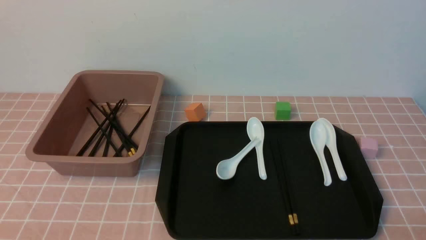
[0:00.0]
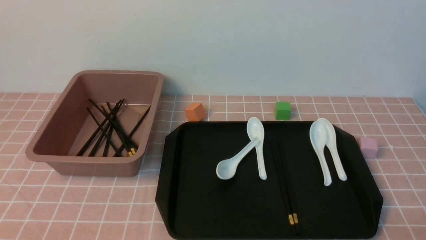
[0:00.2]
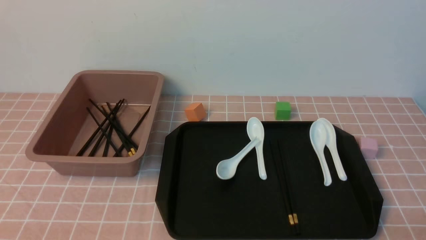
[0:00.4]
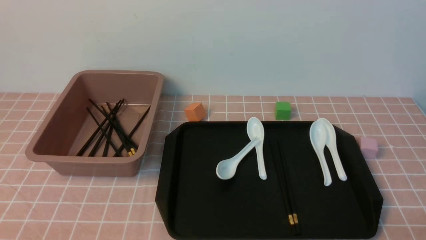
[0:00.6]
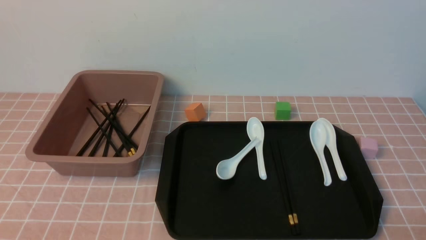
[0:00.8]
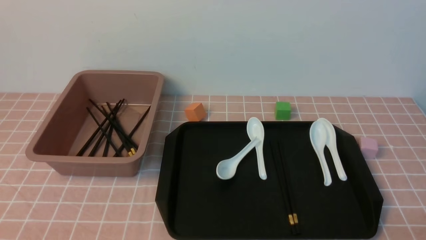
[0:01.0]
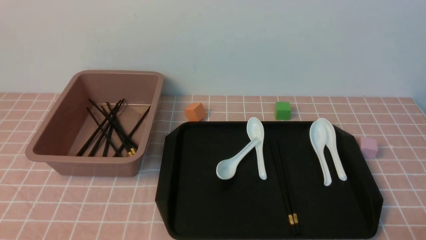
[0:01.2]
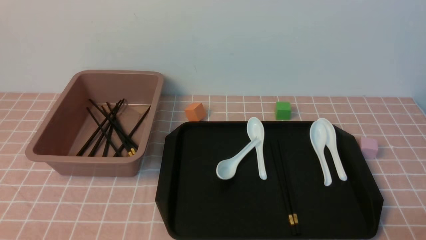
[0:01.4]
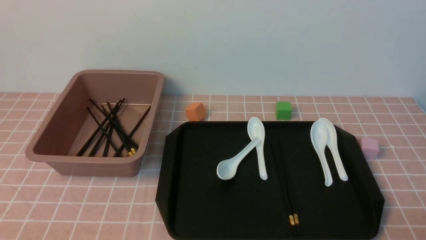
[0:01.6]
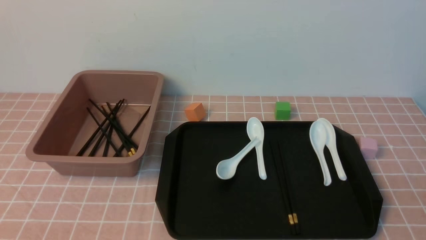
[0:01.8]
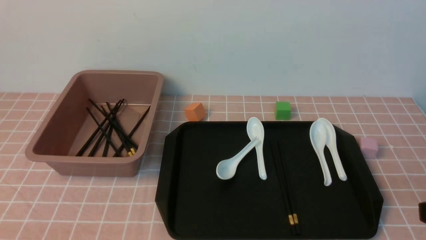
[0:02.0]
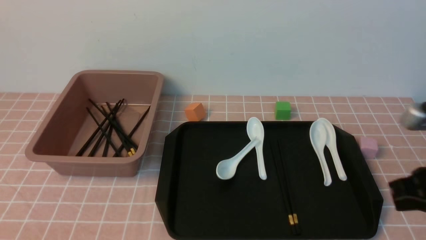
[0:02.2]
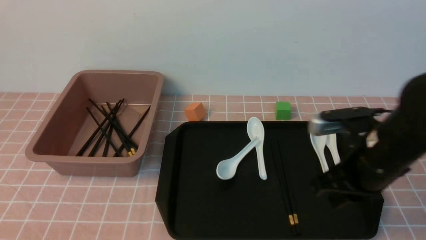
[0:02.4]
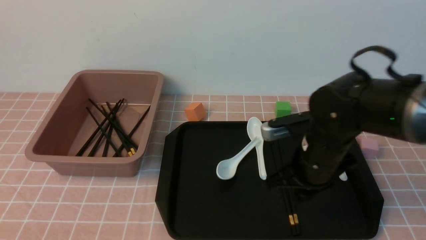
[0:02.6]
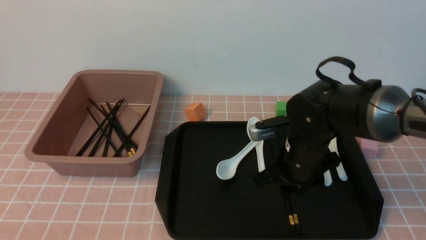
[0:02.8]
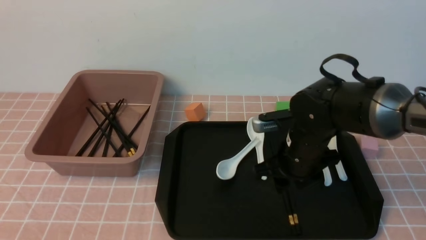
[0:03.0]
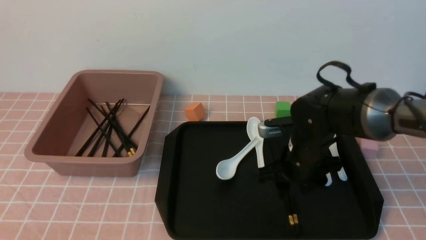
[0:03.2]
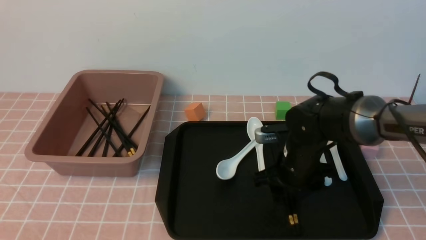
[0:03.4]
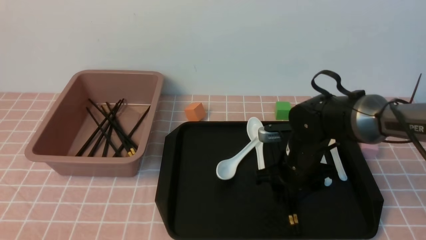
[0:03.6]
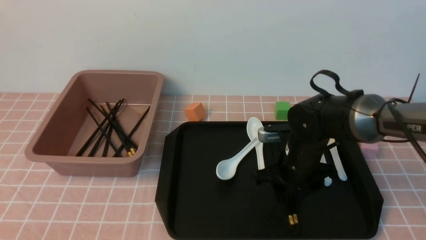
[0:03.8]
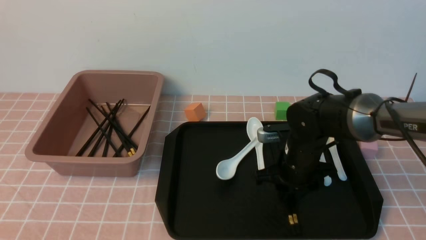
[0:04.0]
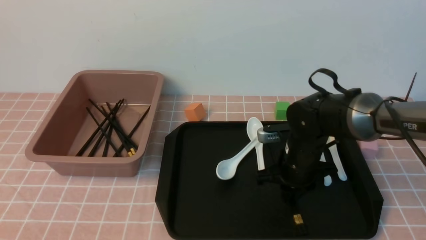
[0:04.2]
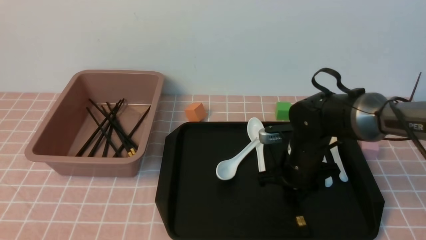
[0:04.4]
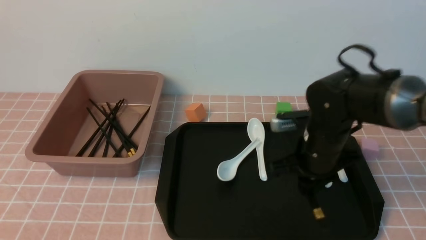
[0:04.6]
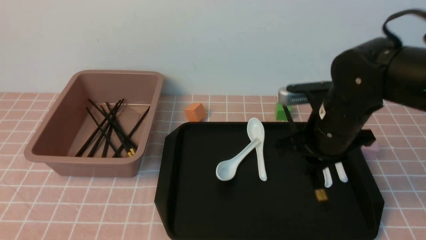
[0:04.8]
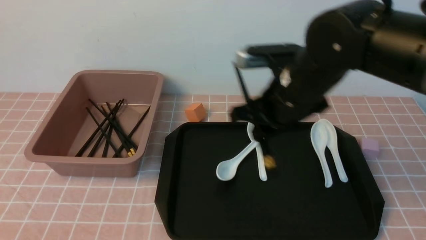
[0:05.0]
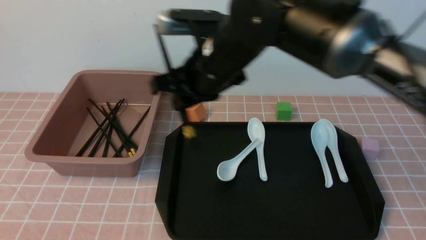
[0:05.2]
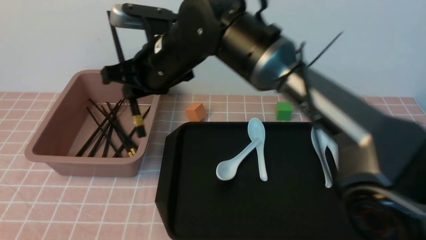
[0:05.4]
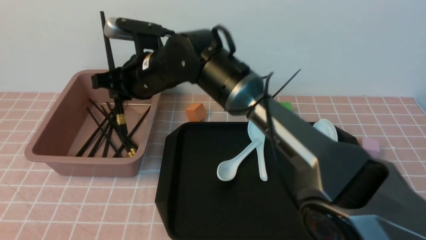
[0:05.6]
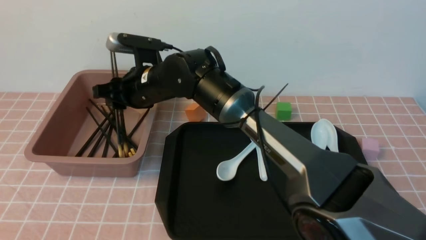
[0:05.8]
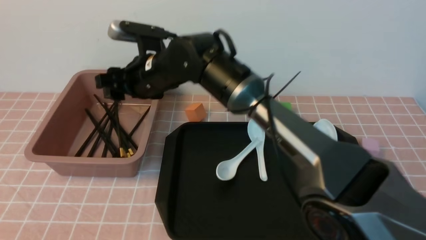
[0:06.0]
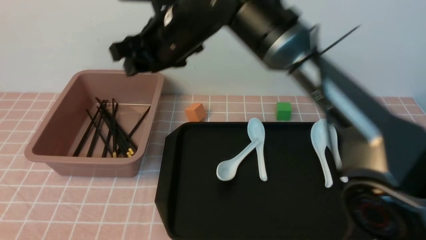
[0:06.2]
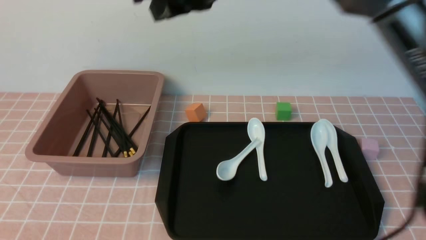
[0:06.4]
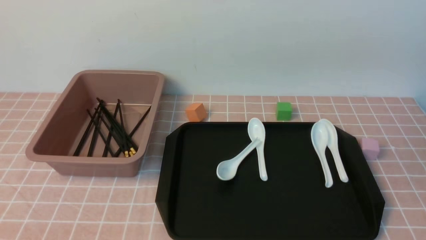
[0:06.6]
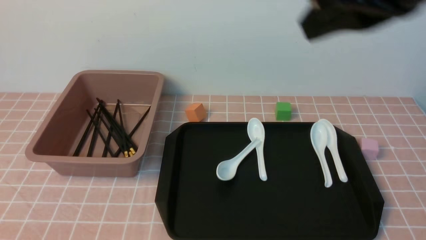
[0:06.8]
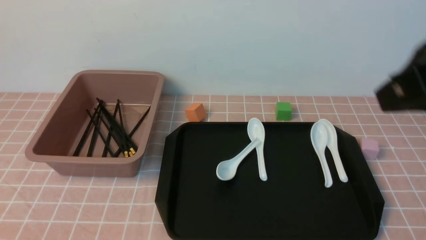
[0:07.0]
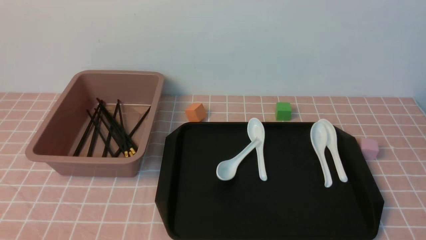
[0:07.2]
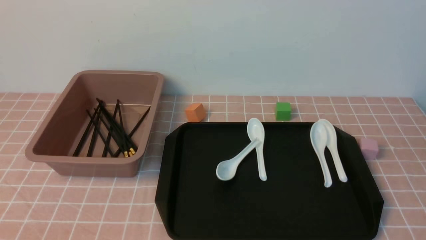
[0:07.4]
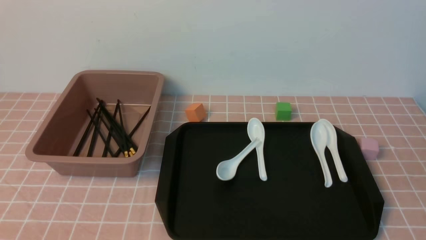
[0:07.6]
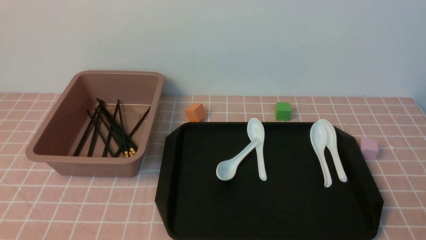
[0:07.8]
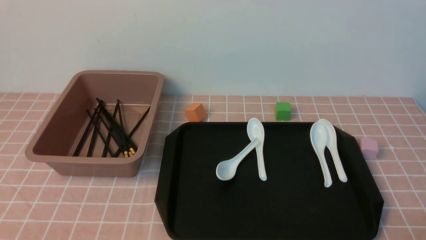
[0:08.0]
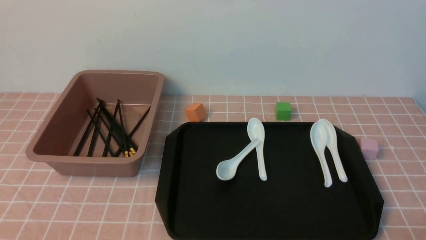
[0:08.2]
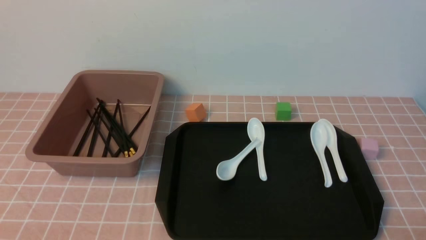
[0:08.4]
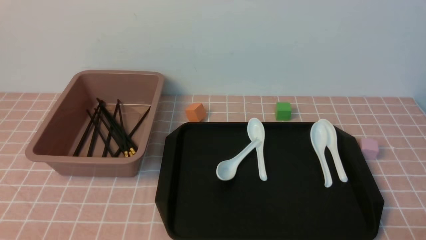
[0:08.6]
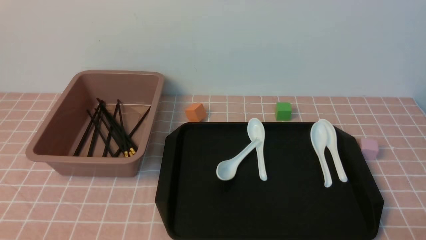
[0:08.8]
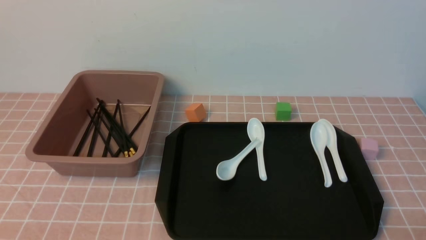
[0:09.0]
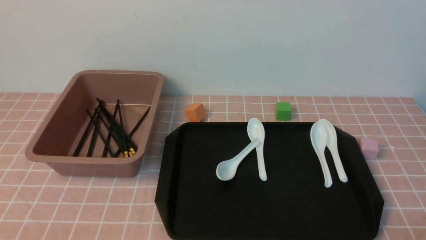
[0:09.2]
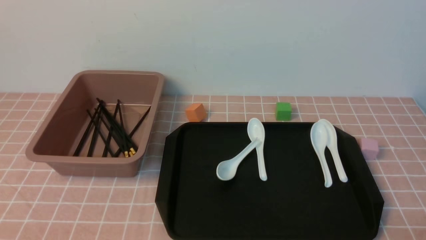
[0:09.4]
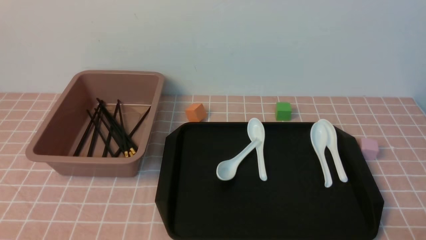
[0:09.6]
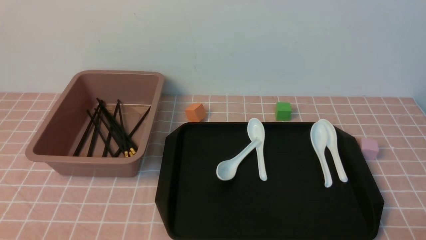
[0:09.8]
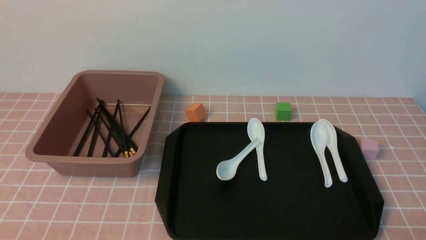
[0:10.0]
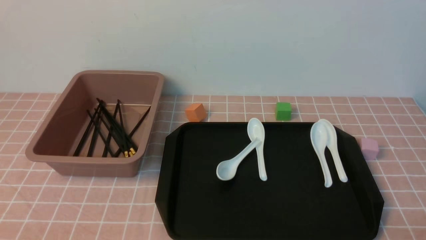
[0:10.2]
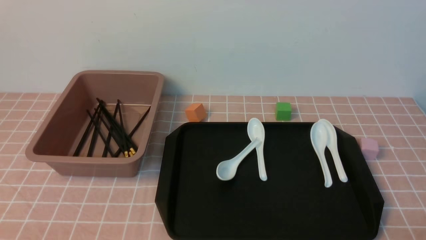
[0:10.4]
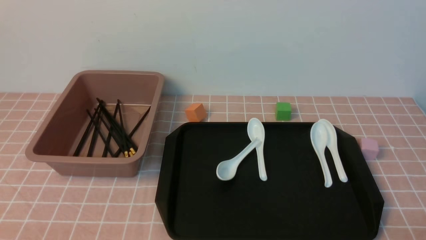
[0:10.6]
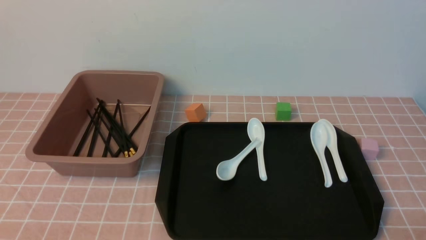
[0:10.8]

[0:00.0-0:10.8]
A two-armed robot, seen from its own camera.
Step, 0:00.0 to 0:04.6: use the right arm to grab a pair of chopsticks.
Step, 0:04.8 to 0:06.2: use the right arm to put the chopsticks into the lunch box.
0:00.0 to 0:01.6: The right gripper moves upward, some 5 cm.
0:01.6 to 0:03.0: The right gripper shifts about 30 cm forward and to the left, and opens its fingers.
0:03.0 to 0:04.6: The right gripper closes up.
0:04.6 to 0:06.2: The right gripper heads to the left and upward, covering about 25 cm, and opens up.
0:06.2 to 0:07.8: The right gripper is displaced to the right and backward by about 40 cm, and closes its fingers.
0:09.2 to 0:10.8: The two grippers keep their place.

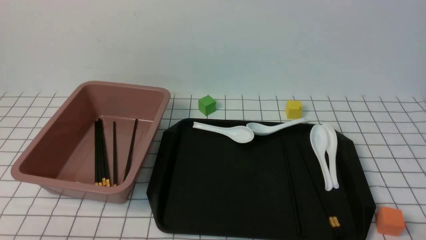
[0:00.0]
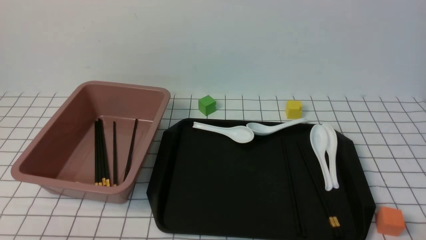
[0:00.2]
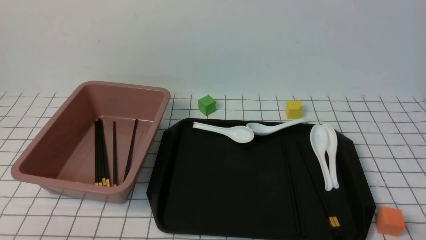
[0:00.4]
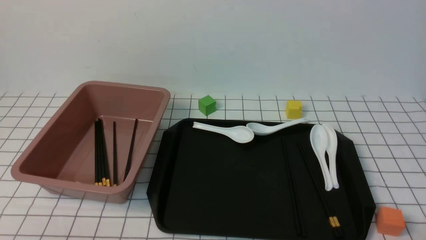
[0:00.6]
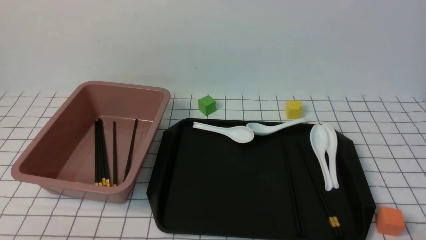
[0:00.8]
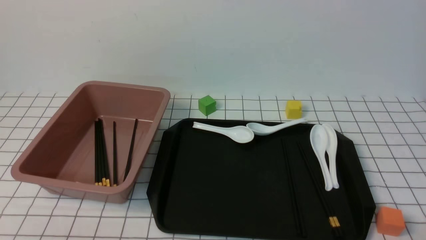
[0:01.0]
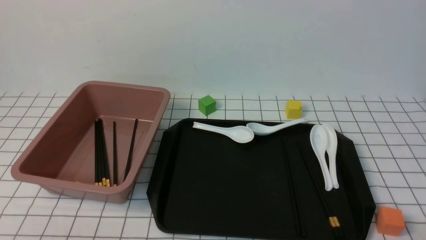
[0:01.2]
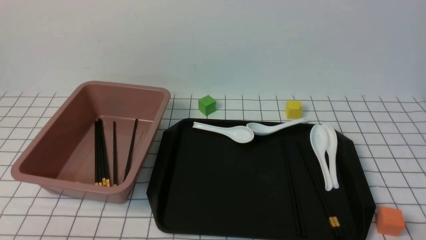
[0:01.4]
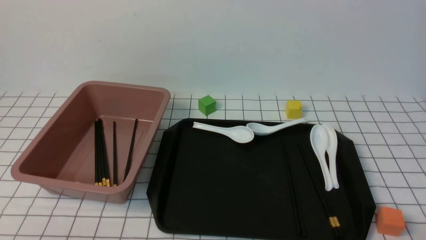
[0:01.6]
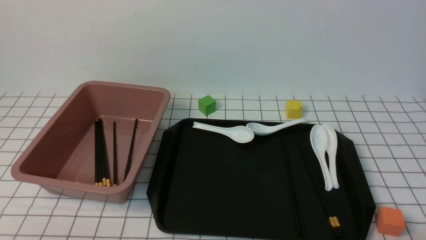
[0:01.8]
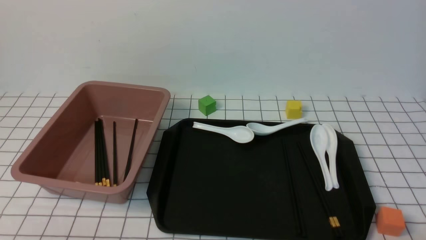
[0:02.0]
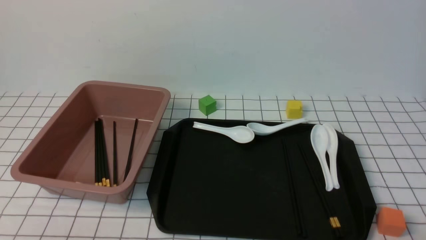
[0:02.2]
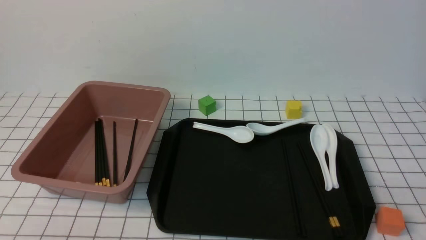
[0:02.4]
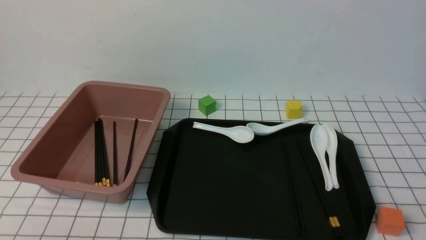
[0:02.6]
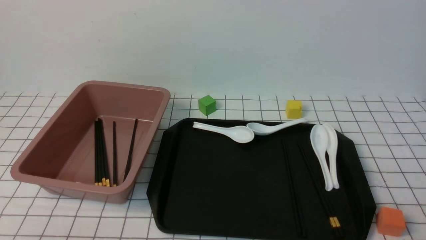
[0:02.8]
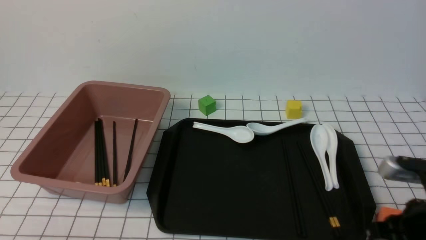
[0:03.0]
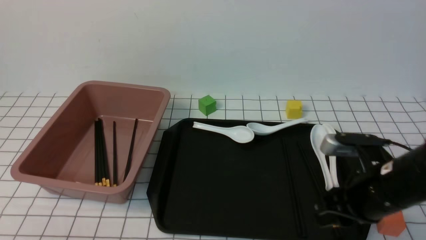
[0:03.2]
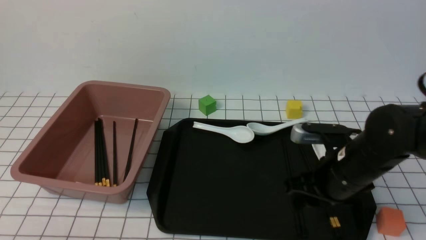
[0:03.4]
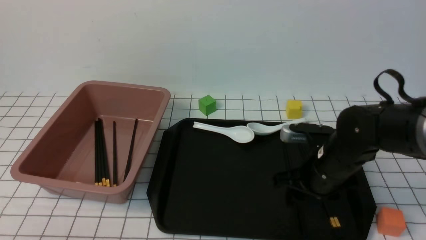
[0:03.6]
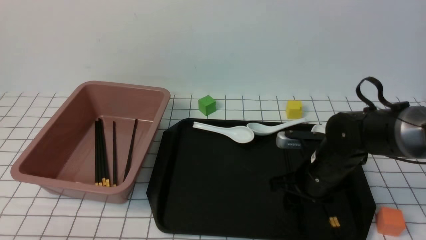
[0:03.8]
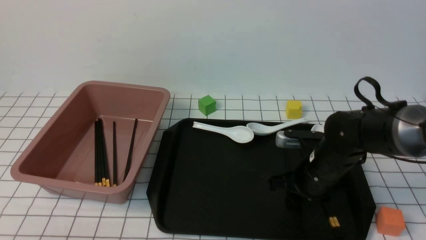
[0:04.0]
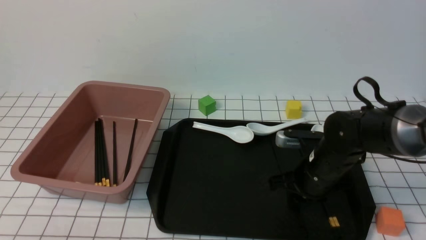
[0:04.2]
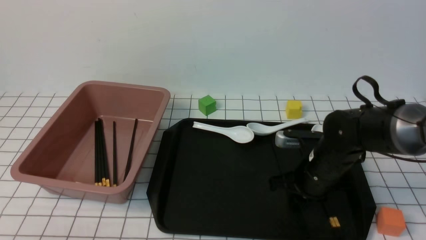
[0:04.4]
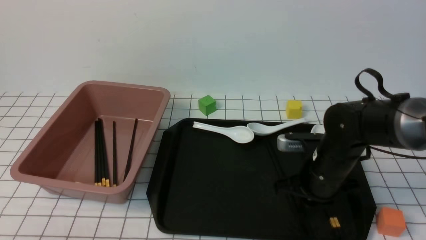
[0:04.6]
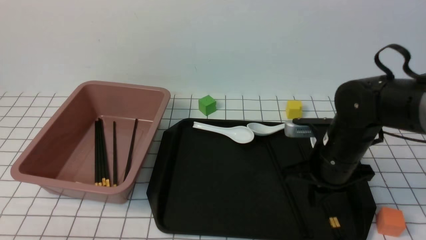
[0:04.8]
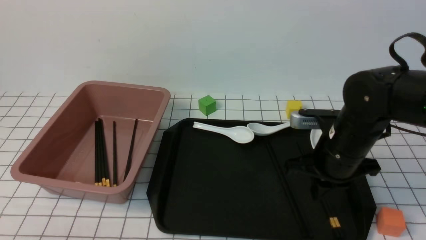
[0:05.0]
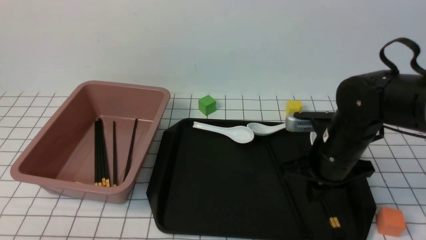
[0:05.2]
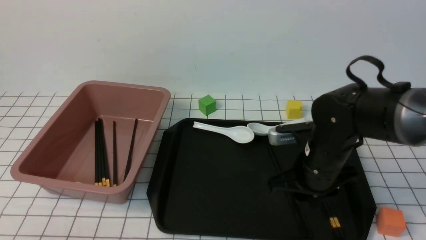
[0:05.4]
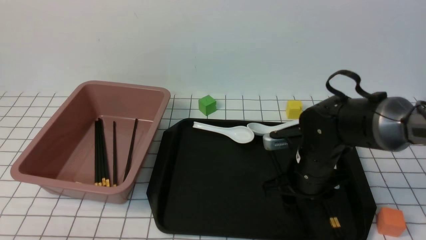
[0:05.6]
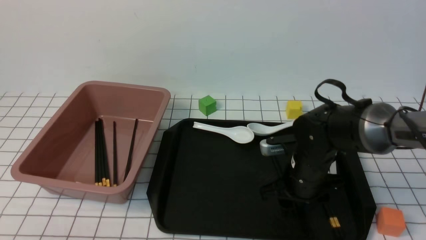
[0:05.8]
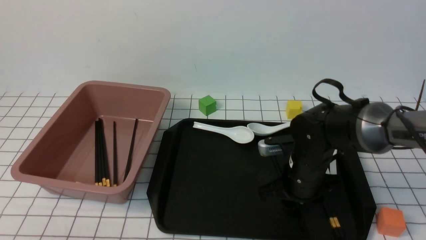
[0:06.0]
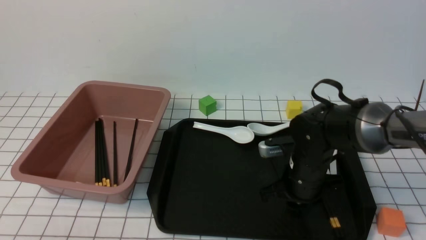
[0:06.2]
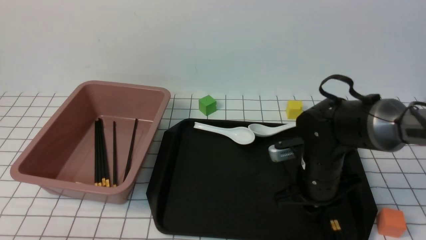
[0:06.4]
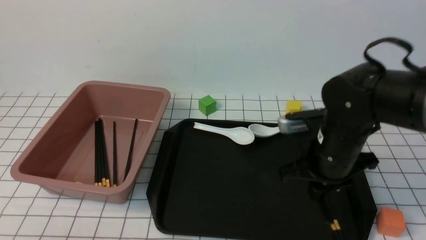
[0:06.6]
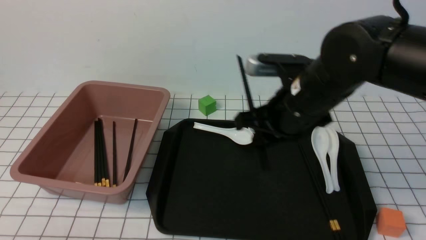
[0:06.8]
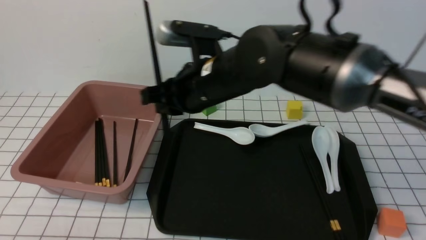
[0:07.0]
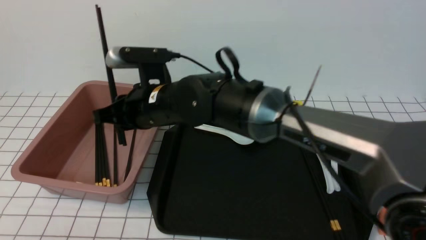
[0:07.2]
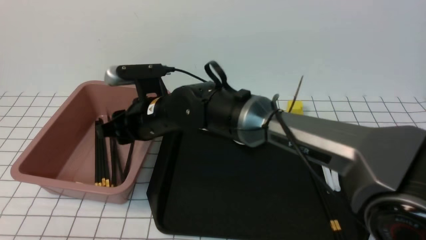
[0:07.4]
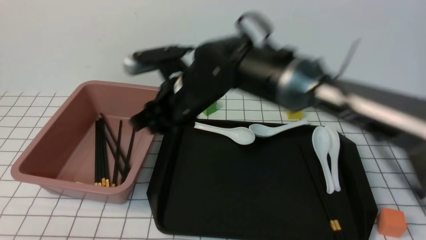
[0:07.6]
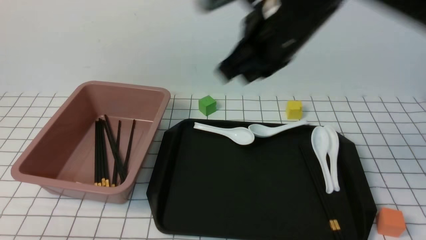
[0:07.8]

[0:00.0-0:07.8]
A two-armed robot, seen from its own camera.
Step, 0:00.0 to 0:06.4: use the right arm to grab a pair of chopsticks.
Step, 0:06.6 to 0:07.8: use the right arm to put the chopsticks into the lunch box.
0:01.6 to 0:03.2: The right gripper is displaced forward and to the left by about 20 cm, and closes, then opens again.
0:03.2 to 0:04.6: The right gripper is displaced forward by roughly 10 cm, and closes.
0:04.6 to 0:06.2: The right gripper opens, then closes once more.
0:06.2 to 0:07.8: The right gripper travels upward by roughly 25 cm, and opens and closes again.
